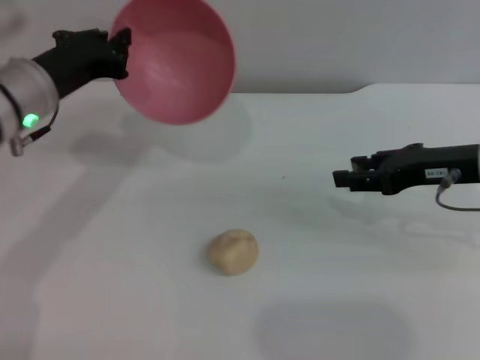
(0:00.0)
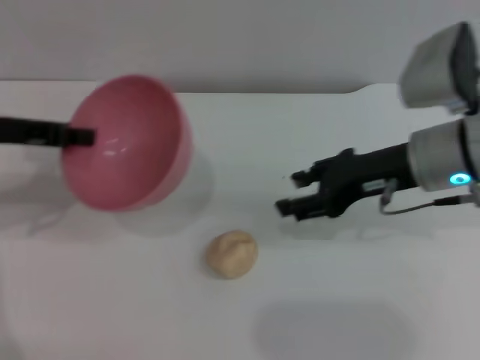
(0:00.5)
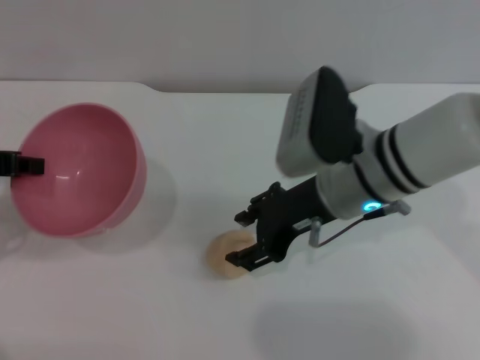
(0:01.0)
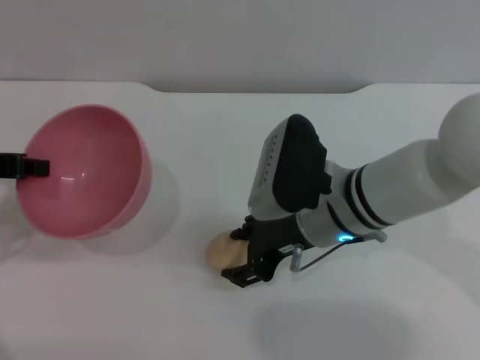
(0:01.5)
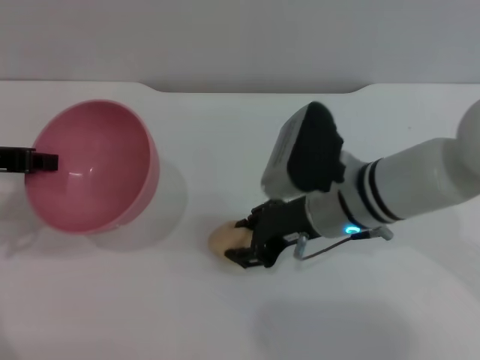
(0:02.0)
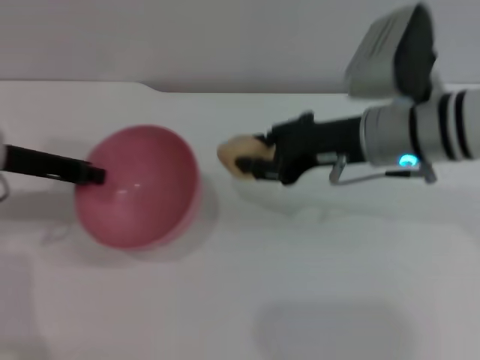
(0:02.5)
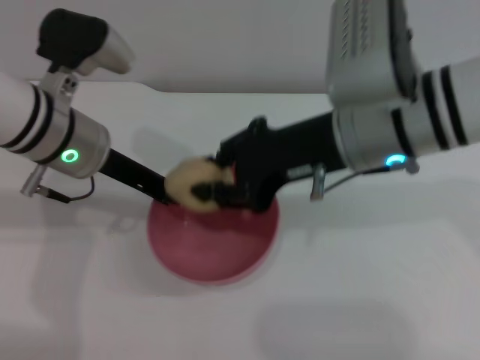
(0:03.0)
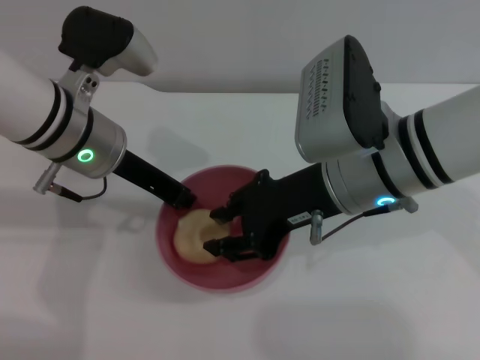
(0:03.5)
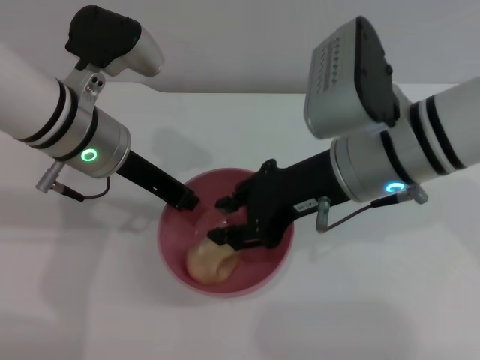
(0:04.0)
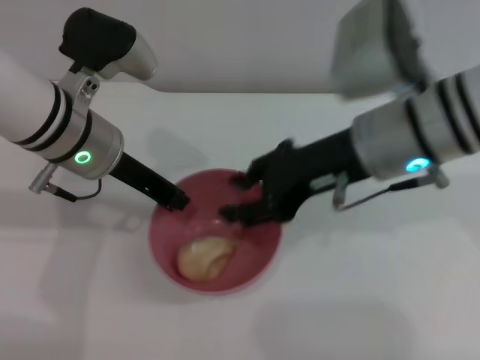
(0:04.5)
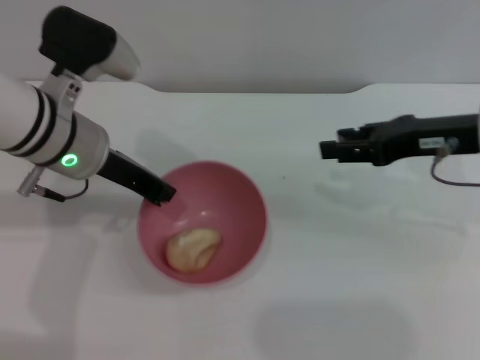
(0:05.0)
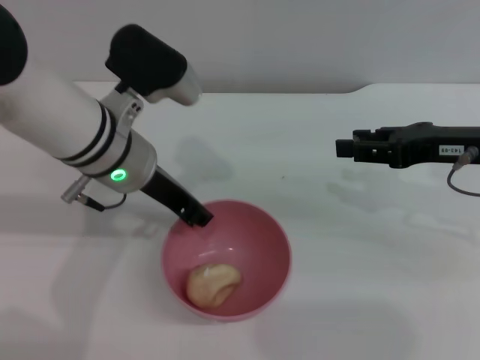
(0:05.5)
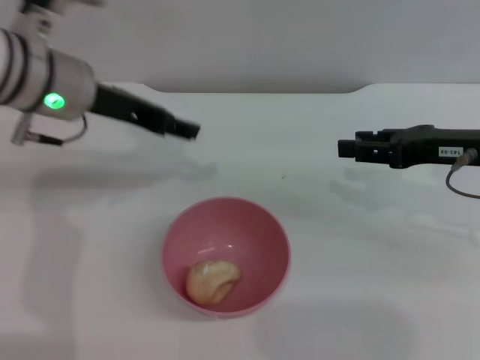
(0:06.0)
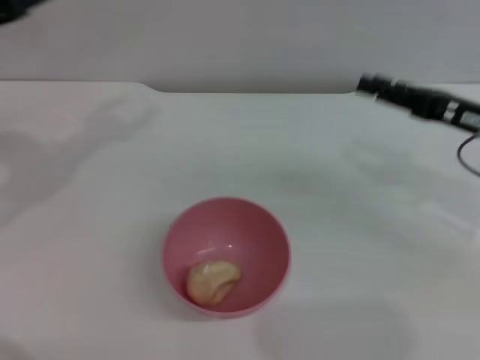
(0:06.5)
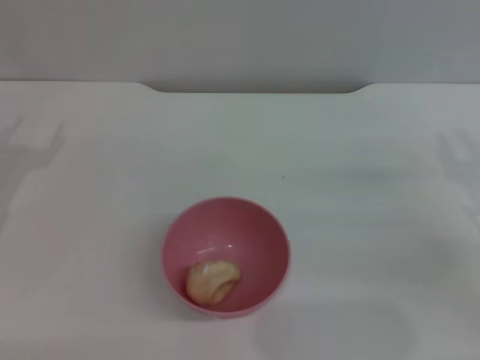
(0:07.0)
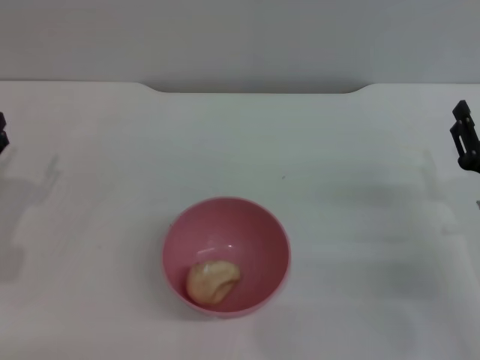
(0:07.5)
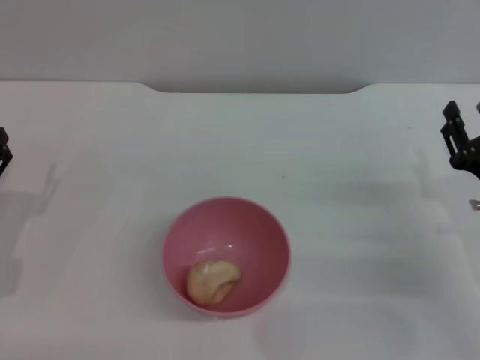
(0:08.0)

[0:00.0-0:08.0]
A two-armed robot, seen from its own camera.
Task of the whole recording: put the egg yolk pastry into the pink bowl and pour it out repeatedly.
Step, 0:00.5 to 0:02.0: Pick up the egg yolk pastry with the right gripper.
Step, 0:02.5 to 0:04.5: Place the egg yolk pastry into the bowl.
Step, 0:05.0 to 0:06.5: Place the bowl on the table.
0:00.0 to 0:02.0: The left gripper goes some 10 cm to the left; the right gripper heads to the left, covering some 15 cm.
0:02.0 to 0:04.0: The left gripper moves to the right, approximately 15 cm. The right gripper shifts roughly 10 cm upward.
0:04.0 to 0:06.0: The right gripper heads to the right, covering about 15 cm; the left gripper opens up.
0:06.0 to 0:08.0: The left gripper heads downward, to the left and backward, covering about 25 cm. The right gripper heads downward and backward, covering approximately 15 cm.
